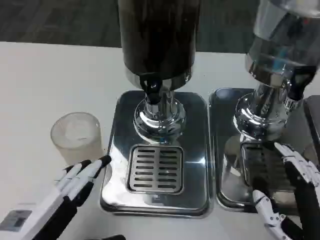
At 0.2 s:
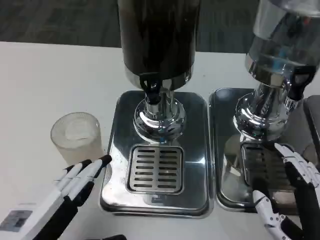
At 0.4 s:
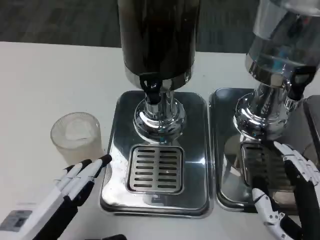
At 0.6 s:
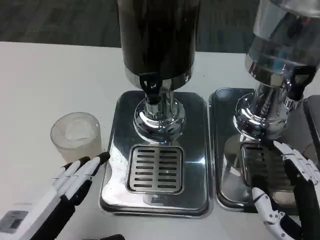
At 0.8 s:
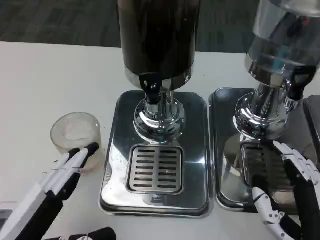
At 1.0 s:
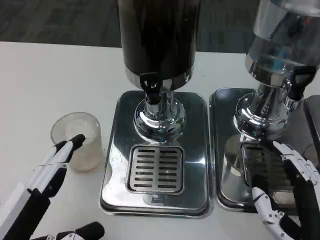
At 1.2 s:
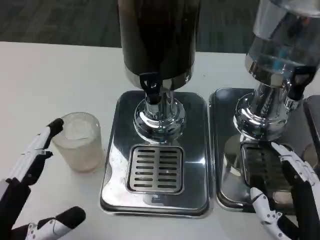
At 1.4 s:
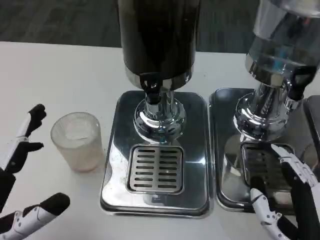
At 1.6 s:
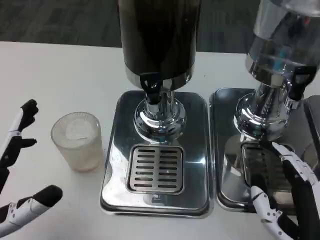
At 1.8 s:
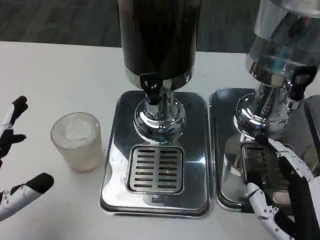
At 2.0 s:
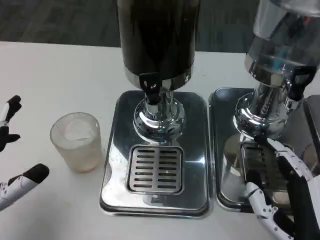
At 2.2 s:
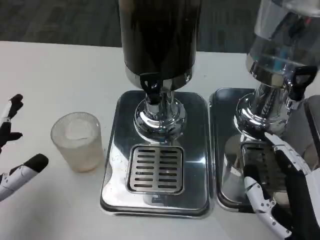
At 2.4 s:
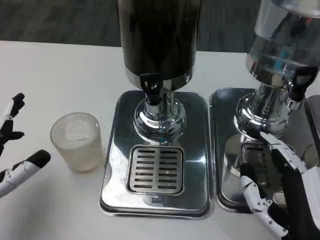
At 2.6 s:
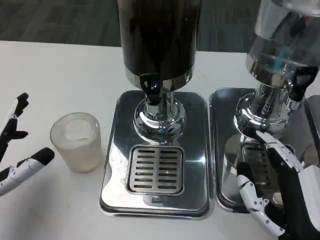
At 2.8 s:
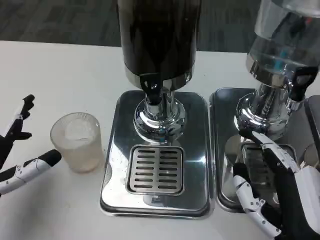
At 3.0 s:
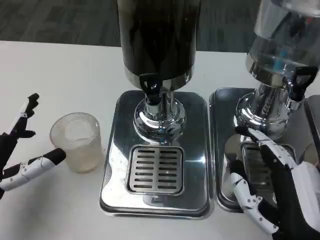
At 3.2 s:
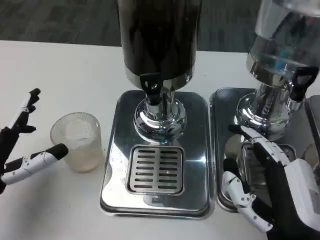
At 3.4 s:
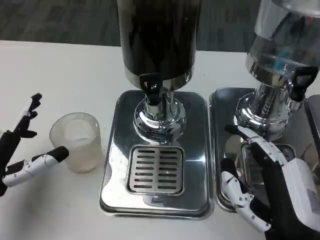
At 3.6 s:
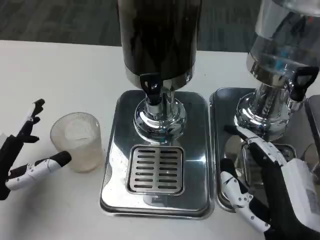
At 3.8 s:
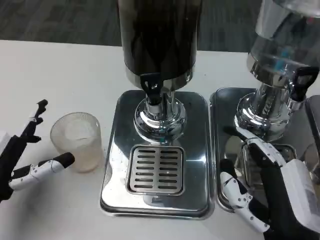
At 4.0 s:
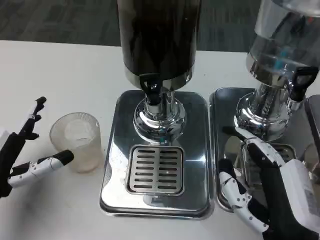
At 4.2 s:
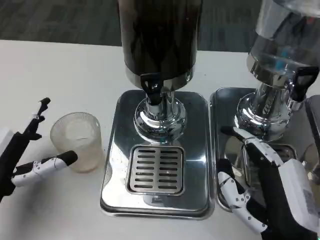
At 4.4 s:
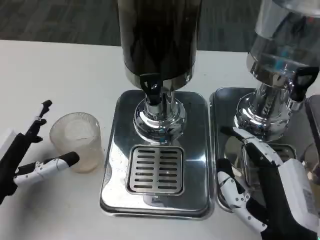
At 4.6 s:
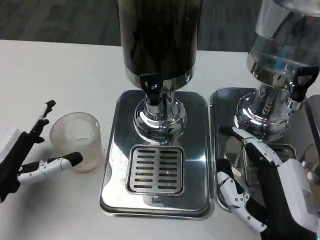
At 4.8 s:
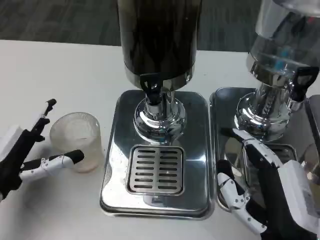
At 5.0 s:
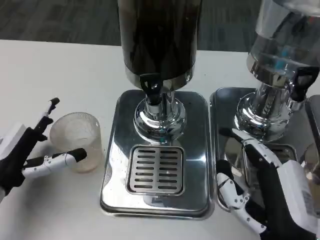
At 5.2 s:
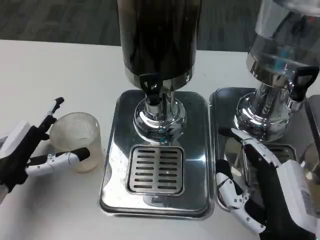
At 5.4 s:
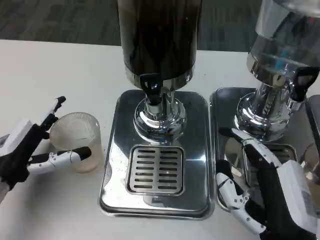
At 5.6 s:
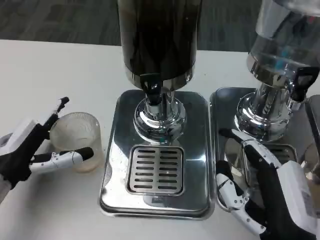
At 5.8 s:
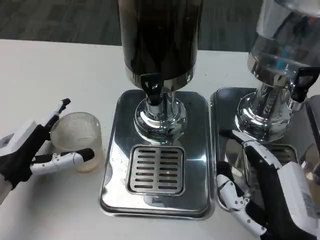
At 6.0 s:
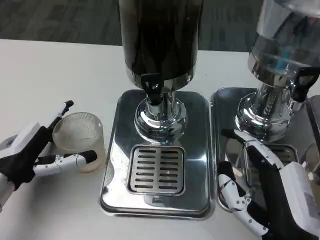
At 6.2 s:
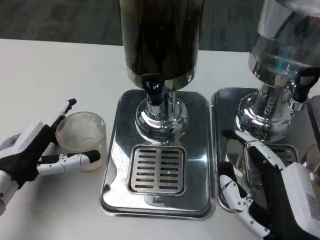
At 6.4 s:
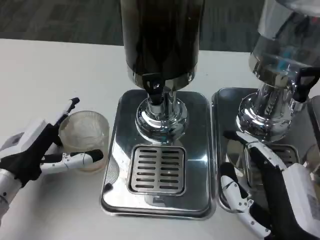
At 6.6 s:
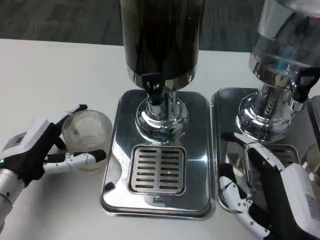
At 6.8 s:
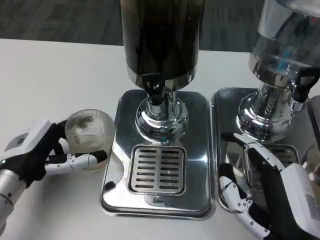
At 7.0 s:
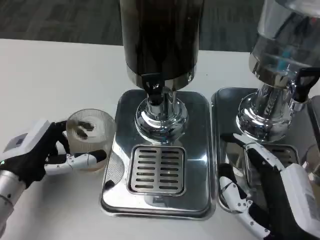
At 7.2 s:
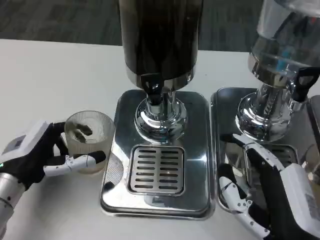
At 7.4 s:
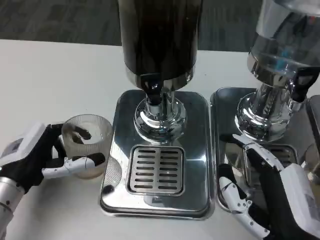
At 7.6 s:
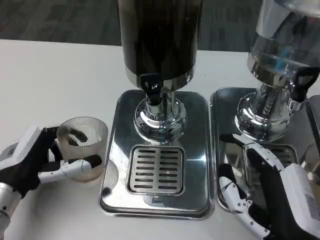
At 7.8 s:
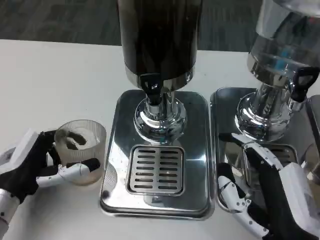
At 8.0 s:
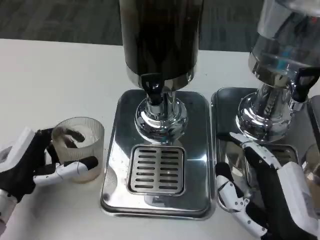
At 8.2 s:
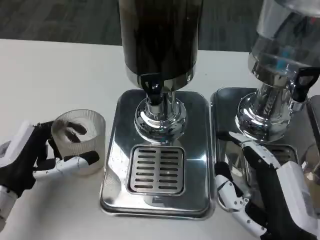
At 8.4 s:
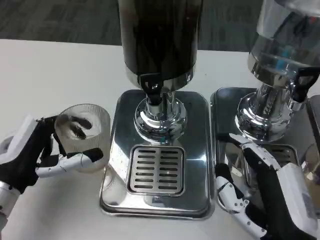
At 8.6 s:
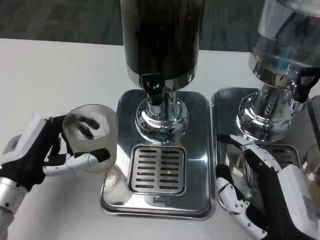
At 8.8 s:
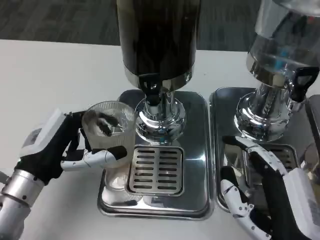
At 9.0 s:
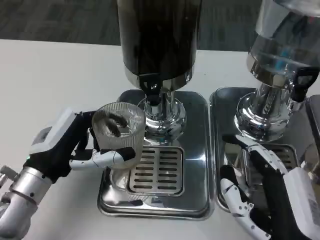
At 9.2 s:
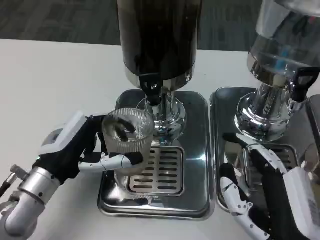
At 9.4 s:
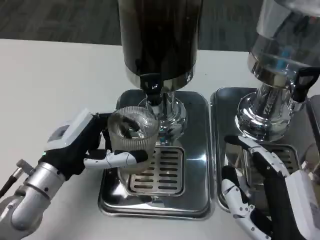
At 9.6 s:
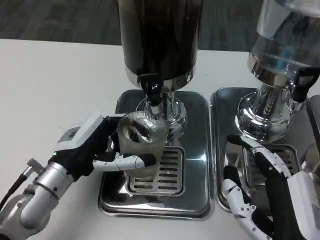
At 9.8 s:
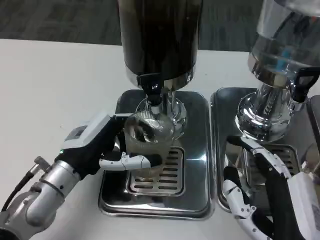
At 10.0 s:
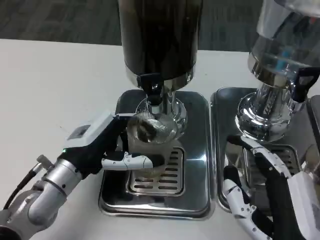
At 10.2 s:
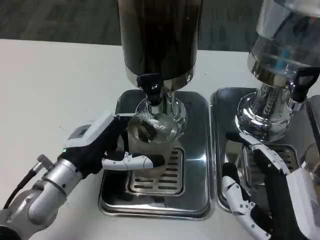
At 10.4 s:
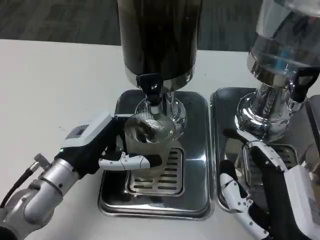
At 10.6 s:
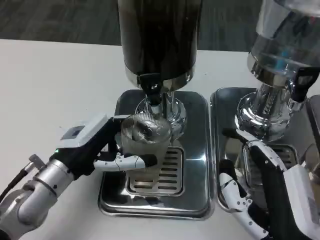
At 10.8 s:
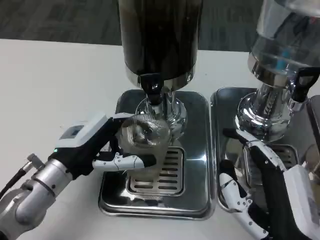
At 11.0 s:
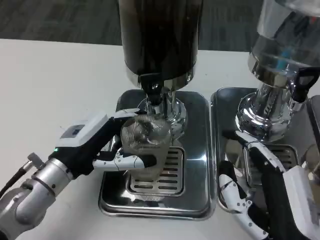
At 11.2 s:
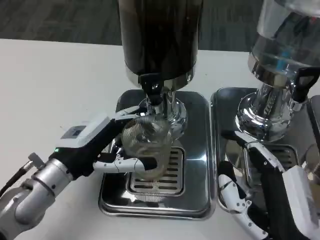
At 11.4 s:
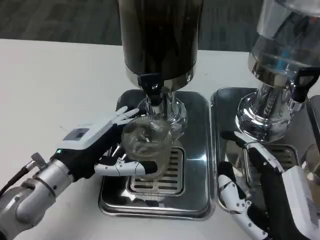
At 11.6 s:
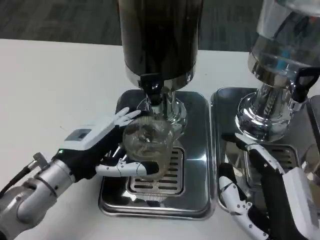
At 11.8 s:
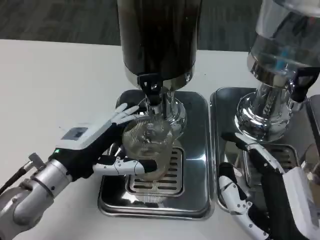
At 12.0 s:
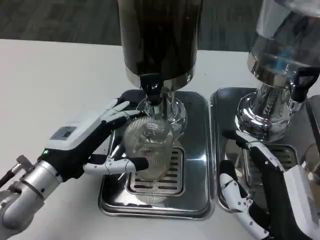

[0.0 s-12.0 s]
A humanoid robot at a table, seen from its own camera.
Task of the whole recording: Grasp the cup under the faucet to collect the drink, then remove the cup.
1.6 to 3.0 s: The left hand moves forward, roughly 10 cm.
3.0 to 6.0 s: The hands move only a little.
6.0 to 7.6 s: The hands make only small movements.
9.0 to 12.0 s: There are only small adjustments of the hands.

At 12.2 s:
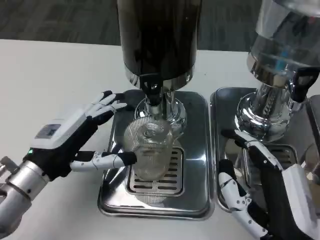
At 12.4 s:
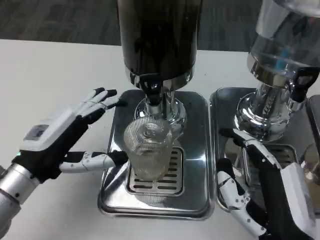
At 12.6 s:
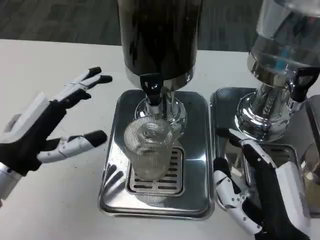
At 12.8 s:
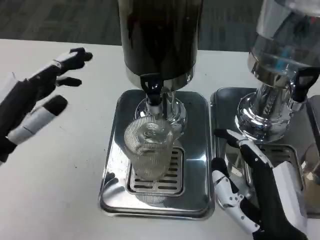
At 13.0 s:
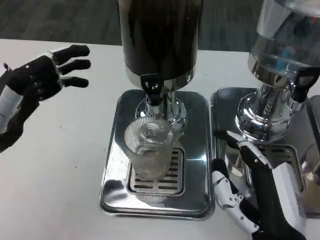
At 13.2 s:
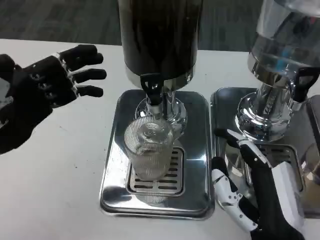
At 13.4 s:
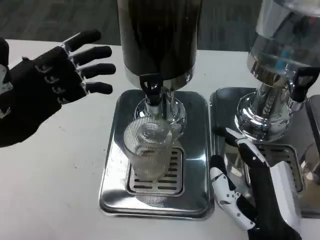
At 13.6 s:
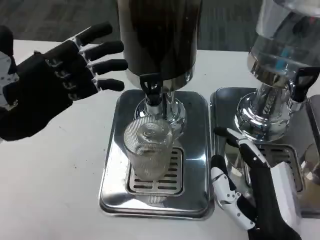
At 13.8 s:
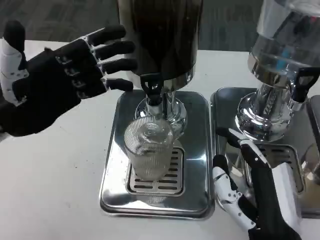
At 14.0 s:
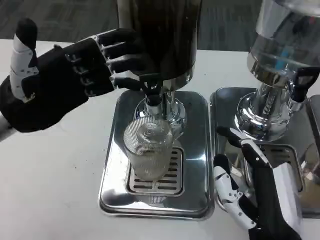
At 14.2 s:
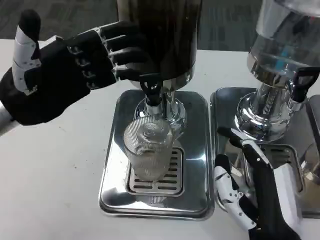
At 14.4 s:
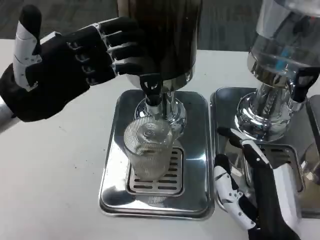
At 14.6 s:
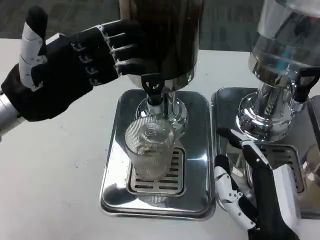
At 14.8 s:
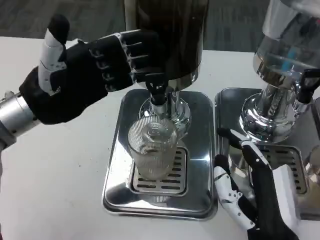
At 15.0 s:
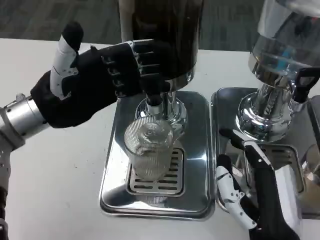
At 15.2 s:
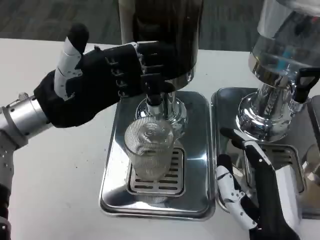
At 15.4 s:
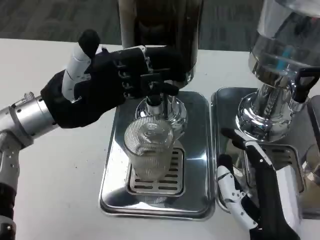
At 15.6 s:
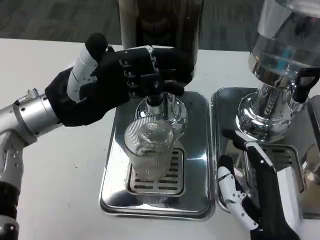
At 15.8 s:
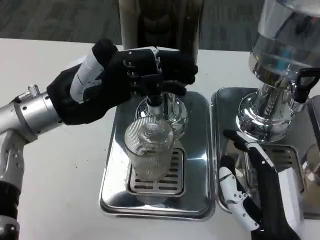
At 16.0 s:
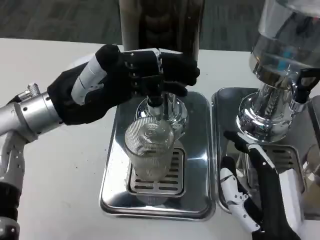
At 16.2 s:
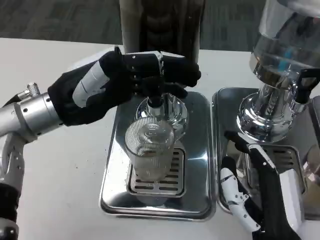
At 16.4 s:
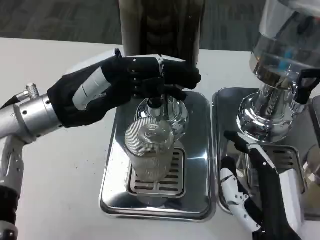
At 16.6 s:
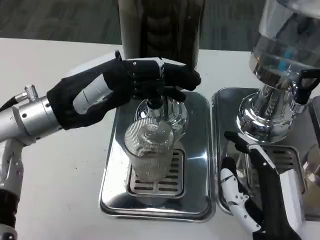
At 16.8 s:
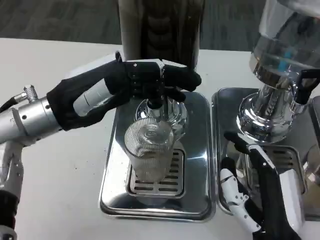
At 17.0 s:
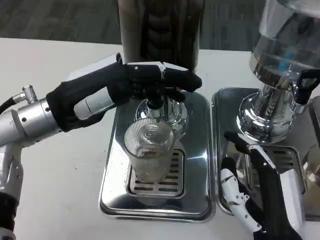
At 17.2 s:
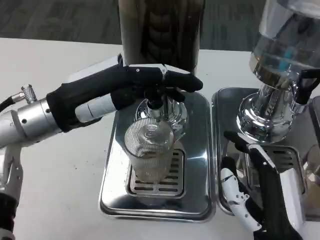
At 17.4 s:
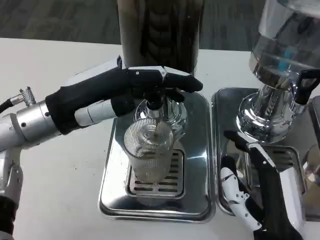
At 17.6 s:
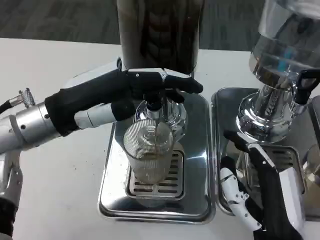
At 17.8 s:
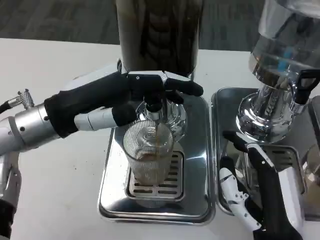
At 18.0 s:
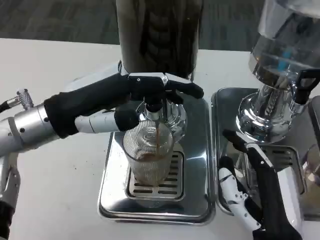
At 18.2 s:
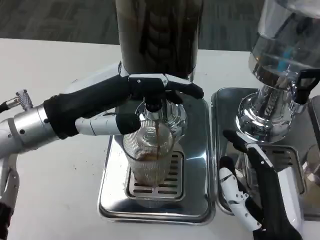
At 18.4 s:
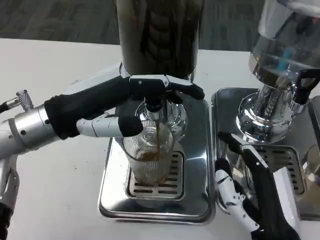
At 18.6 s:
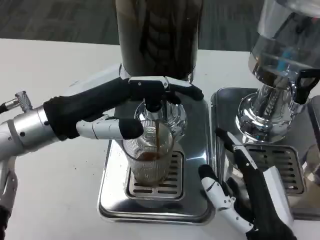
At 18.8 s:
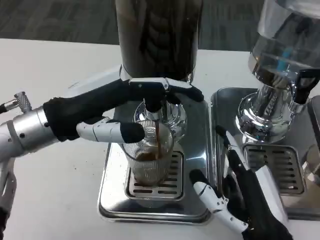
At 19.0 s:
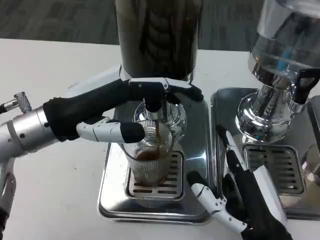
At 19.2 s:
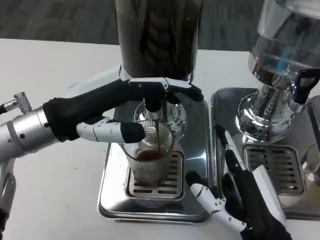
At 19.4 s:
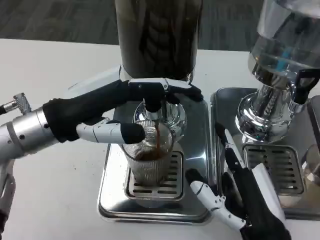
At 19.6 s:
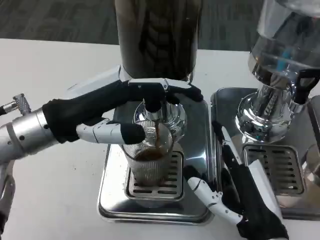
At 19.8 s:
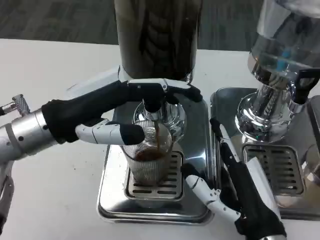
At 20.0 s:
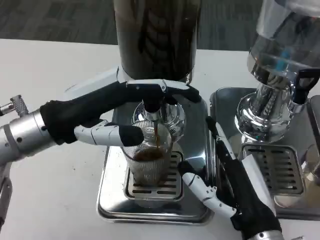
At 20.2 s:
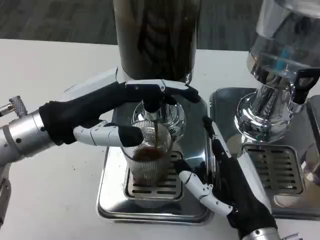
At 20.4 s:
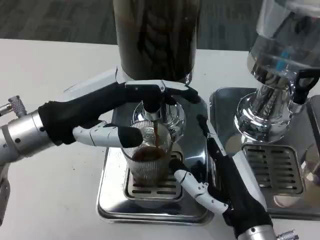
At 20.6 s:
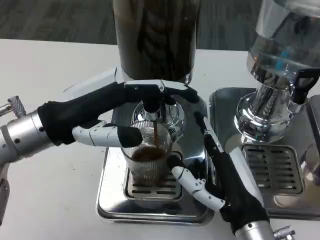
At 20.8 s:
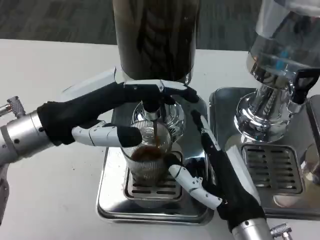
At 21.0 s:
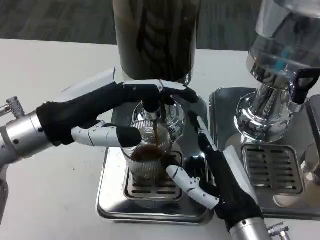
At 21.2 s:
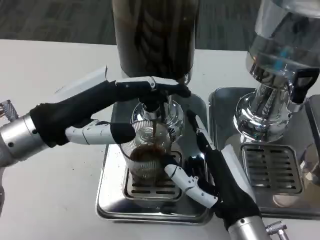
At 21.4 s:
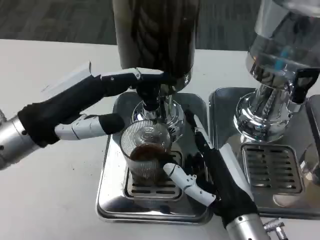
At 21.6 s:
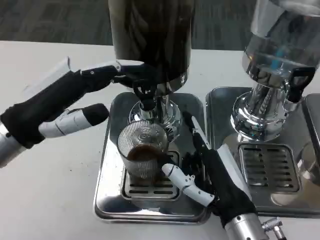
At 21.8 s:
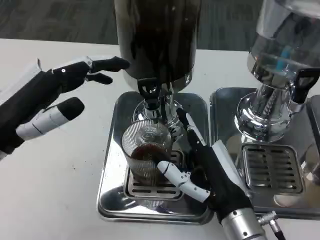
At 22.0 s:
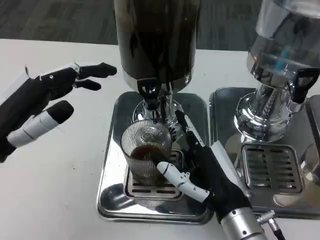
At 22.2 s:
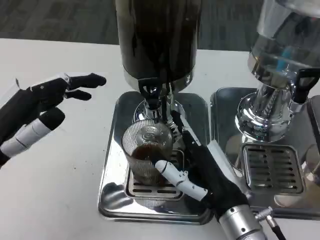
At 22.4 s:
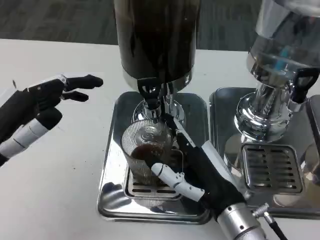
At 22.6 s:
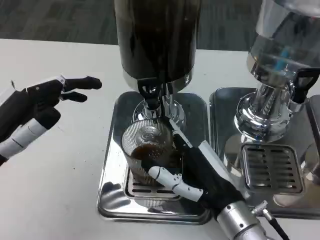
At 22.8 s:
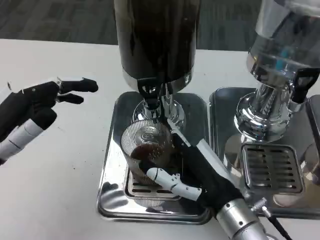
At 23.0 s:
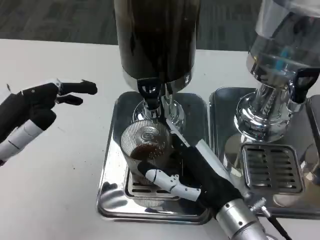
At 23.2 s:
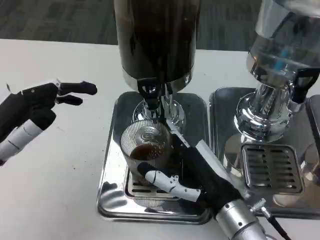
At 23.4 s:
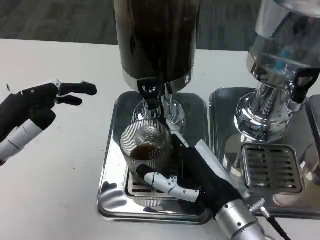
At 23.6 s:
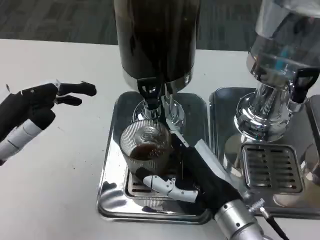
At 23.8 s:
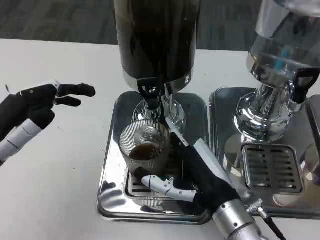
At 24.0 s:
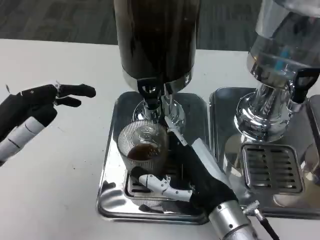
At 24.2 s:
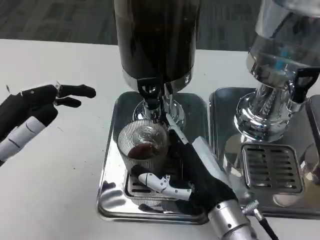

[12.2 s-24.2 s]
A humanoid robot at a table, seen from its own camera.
Task of the whole recording: Grasp the cup under the faucet to collect the drink, then remove the cup.
12.2 to 13.8 s: The left hand goes about 10 cm upward.
13.8 to 15.2 s: The left hand shifts by approximately 5 cm.
21.2 to 22.6 s: The left hand shifts roughly 10 cm to the left and backward.
22.6 to 24.2 s: The hands make only small movements.
